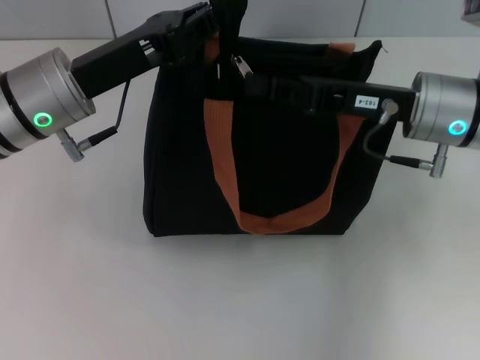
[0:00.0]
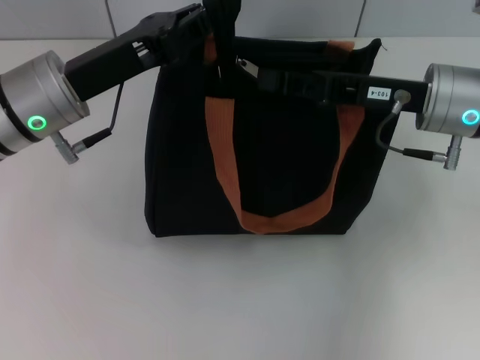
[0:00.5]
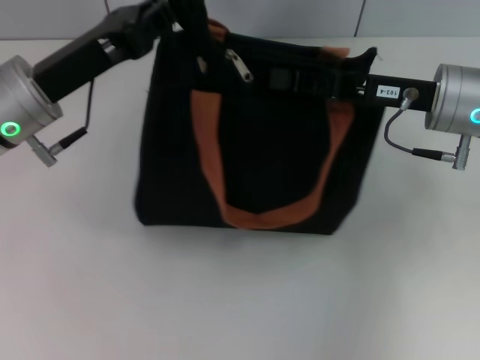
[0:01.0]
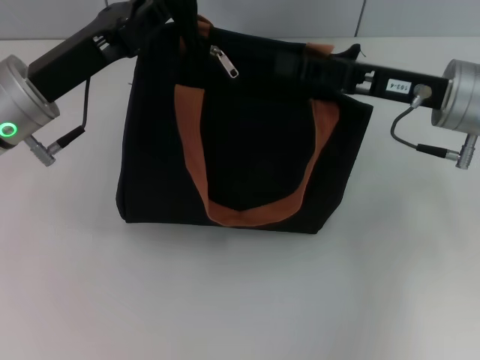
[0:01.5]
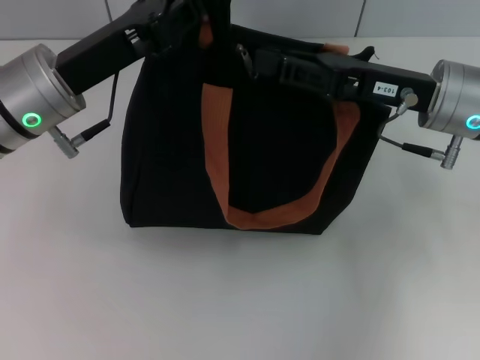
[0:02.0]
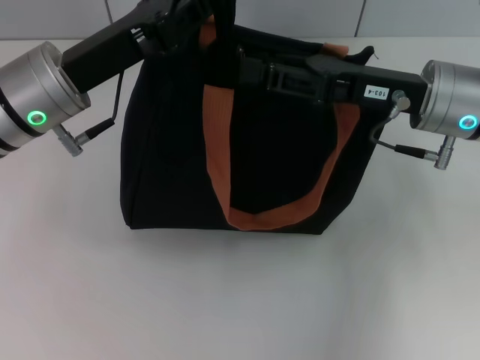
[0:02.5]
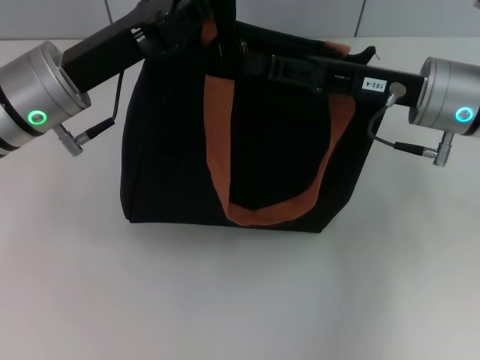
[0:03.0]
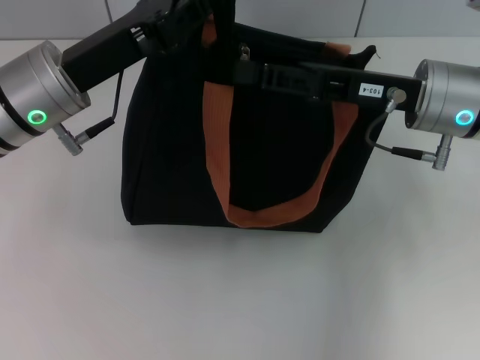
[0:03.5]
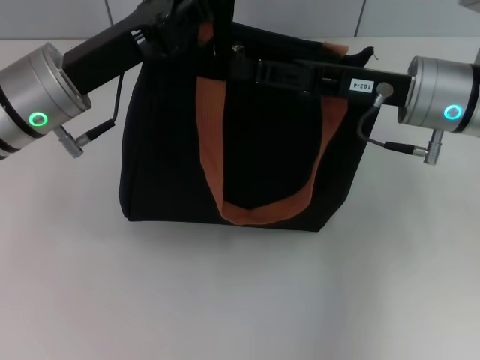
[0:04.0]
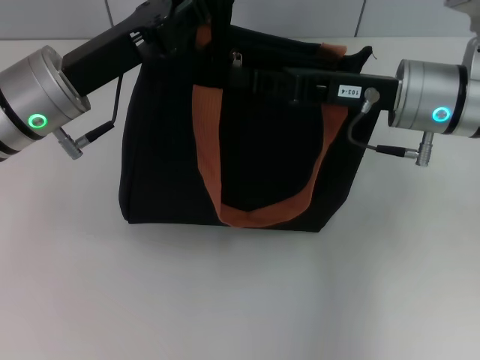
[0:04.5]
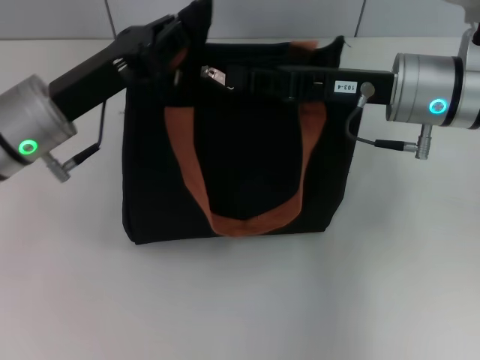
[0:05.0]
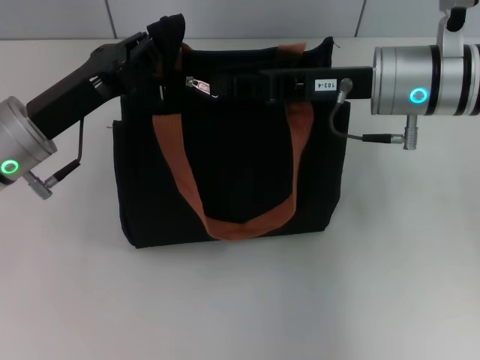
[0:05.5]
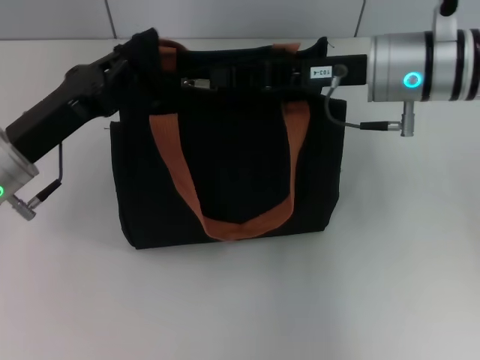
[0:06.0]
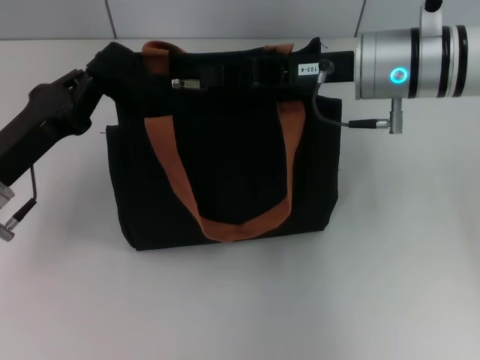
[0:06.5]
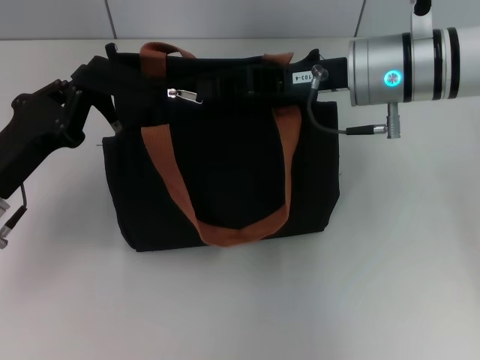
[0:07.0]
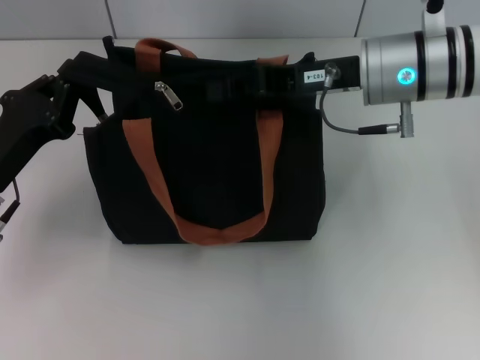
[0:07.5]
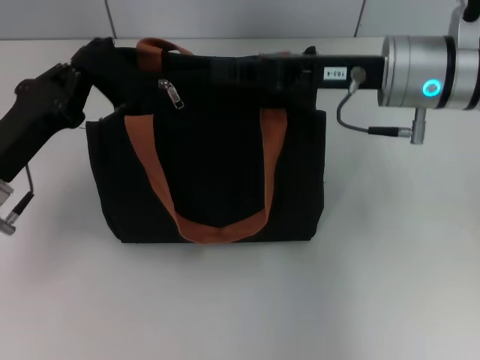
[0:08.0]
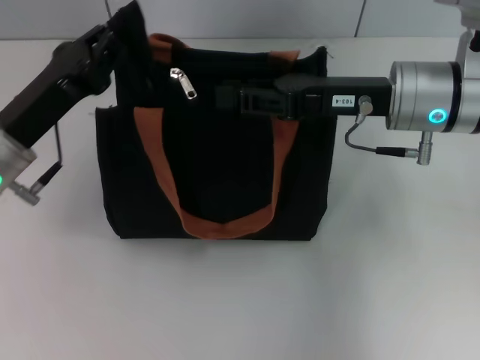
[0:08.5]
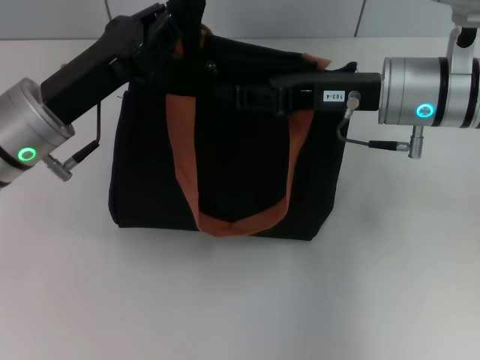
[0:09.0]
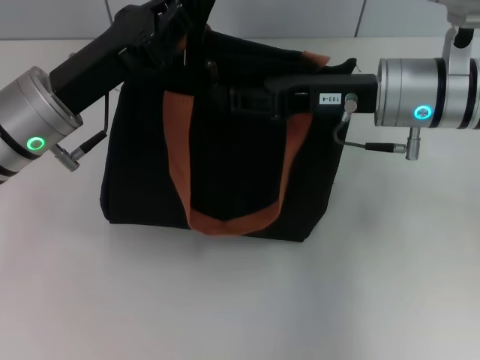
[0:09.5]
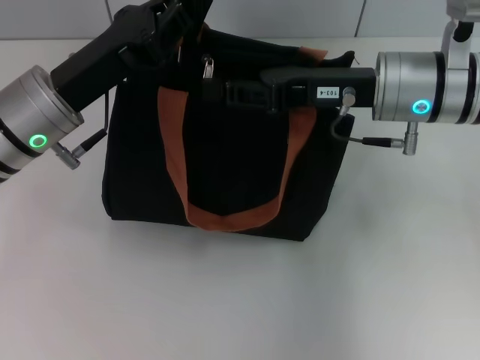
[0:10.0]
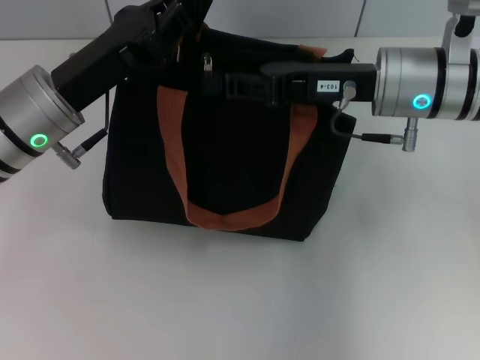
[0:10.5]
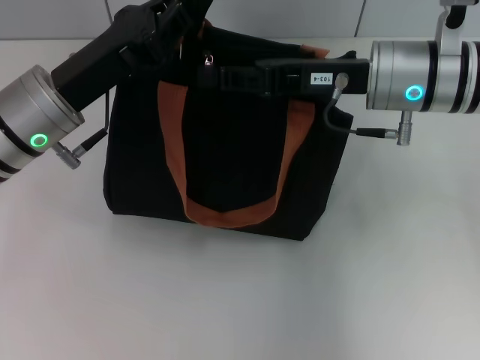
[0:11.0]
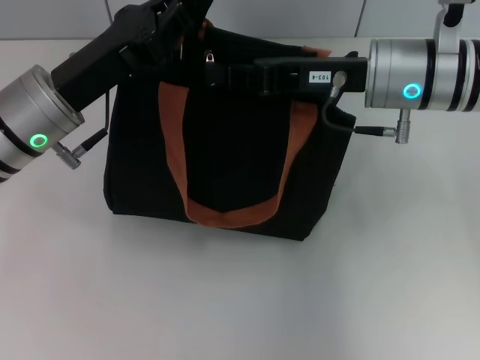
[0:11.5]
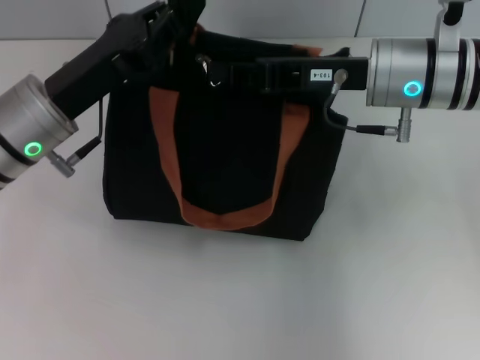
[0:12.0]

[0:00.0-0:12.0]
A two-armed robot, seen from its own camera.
0:00.0 to 0:02.0: The grippers move only a little.
0:02.0 to 0:04.0: The right gripper opens its fingers.
0:04.0 to 0:06.0: The left gripper is displaced downward and to the left by roughly 5 cm, while the right gripper closes up.
0:08.0 to 0:10.0: The right gripper opens its fingers, while the left gripper moves to the right, upward and forward, some 10 cm.
0:10.0 to 0:12.0: The right gripper closes up.

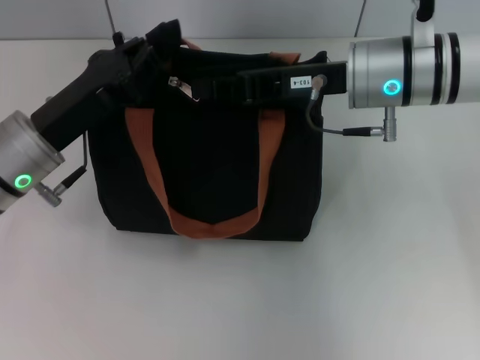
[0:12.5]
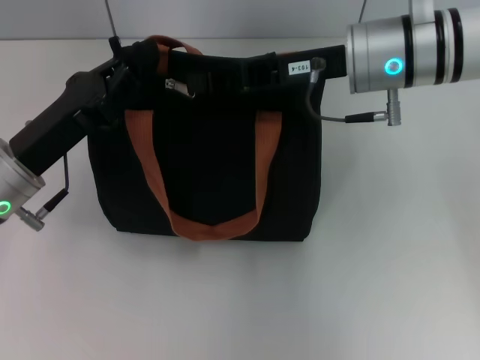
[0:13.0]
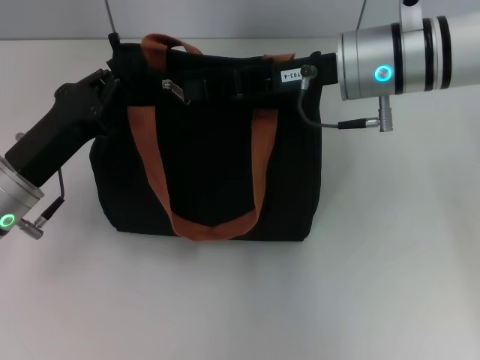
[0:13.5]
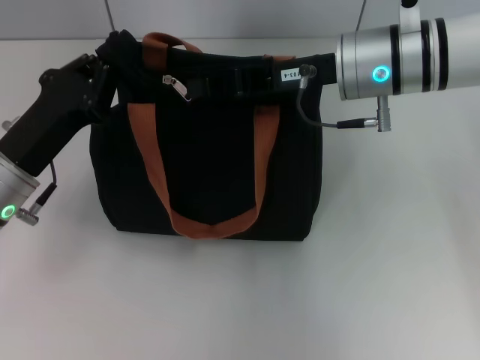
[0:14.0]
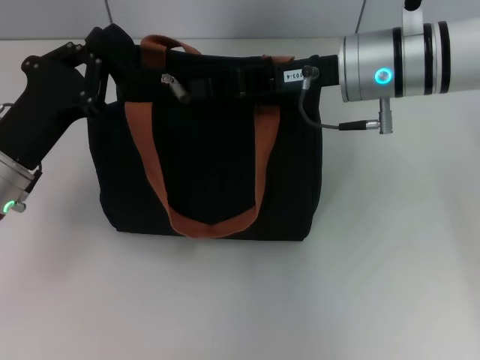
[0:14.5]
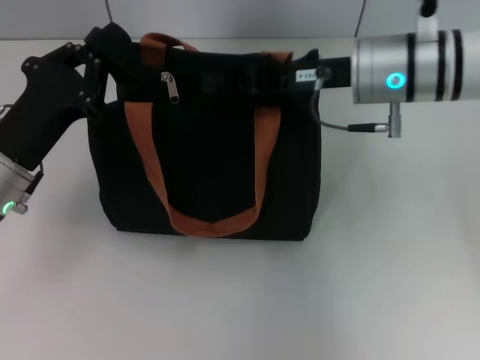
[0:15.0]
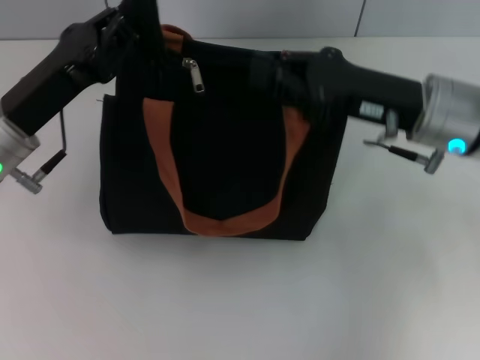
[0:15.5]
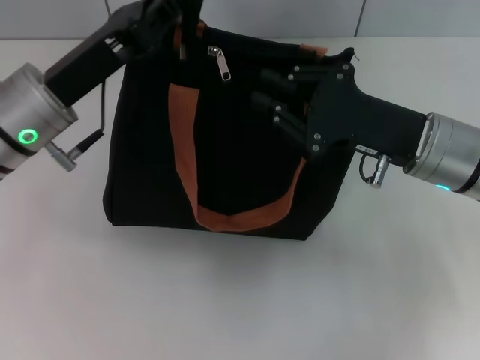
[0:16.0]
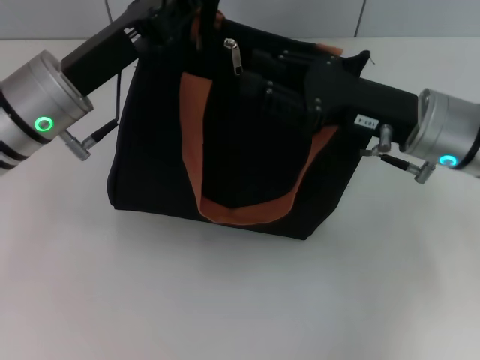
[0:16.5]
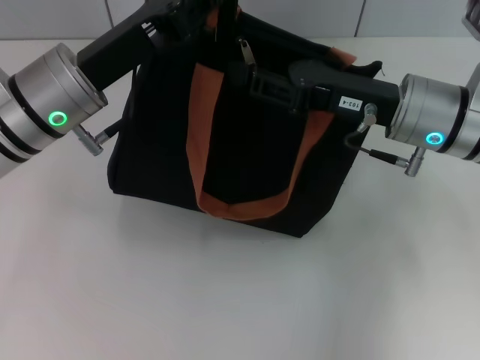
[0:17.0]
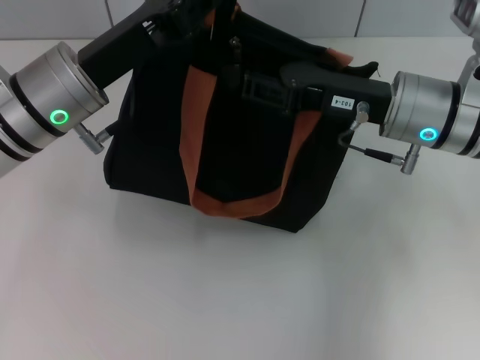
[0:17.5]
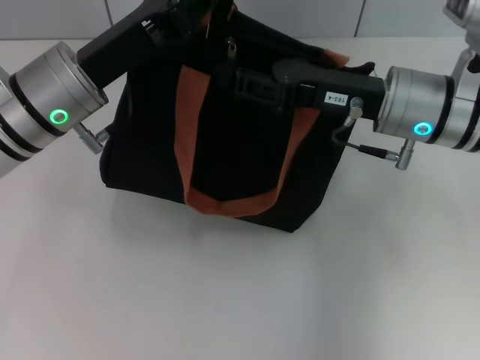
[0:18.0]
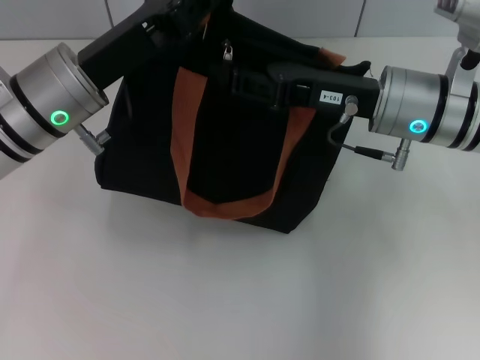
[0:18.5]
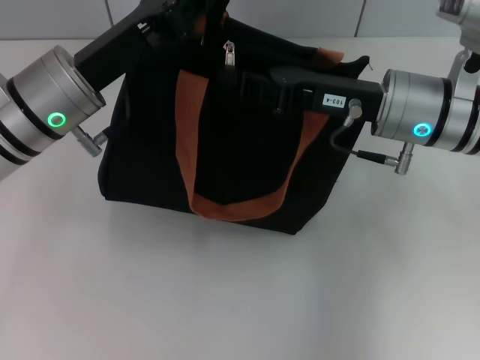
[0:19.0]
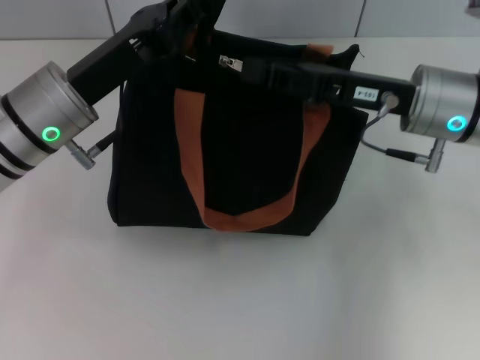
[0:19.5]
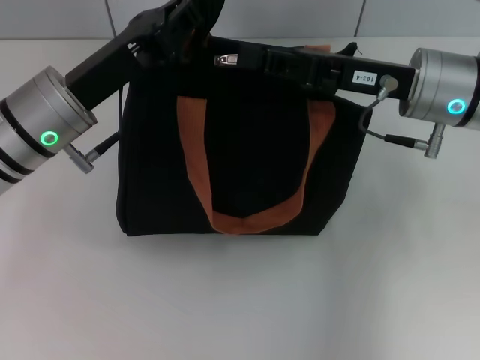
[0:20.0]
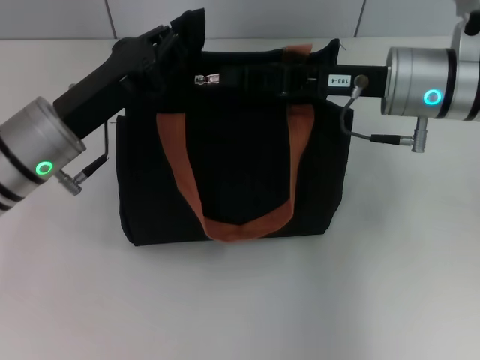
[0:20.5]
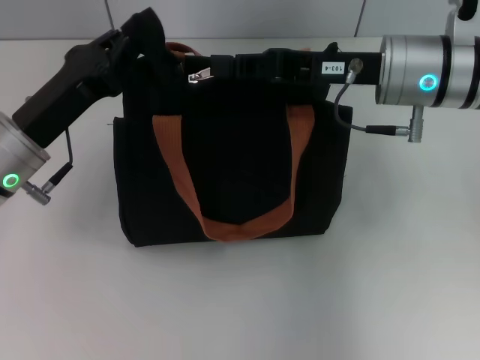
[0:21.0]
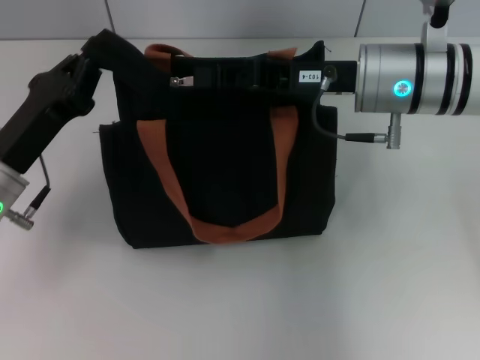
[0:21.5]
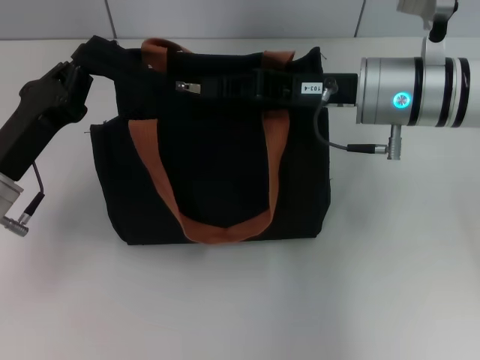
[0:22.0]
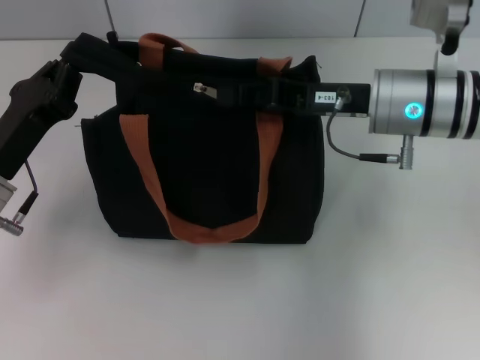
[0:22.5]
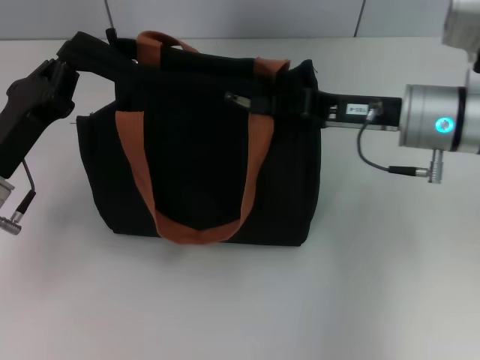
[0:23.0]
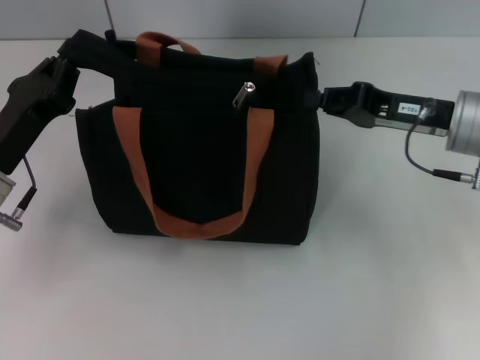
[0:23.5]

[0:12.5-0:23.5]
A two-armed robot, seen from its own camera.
Step, 0:12.5 to 0:23.0: Pull up the zipper with your right hand.
0:14.5 to 0:16.0: The right gripper shifts about 10 cm backward, to the right and downward; the left gripper moves upward, some 5 cm.
0:16.0 to 0:18.0: The right gripper ends up some 5 cm from where it was.
0:18.0 to 0:20.0: The right gripper closes.
0:20.0 to 0:21.5: The left gripper shifts about 10 cm to the left and downward.
0:21.5 to 0:23.5: The right gripper is displaced to the right by about 10 cm.

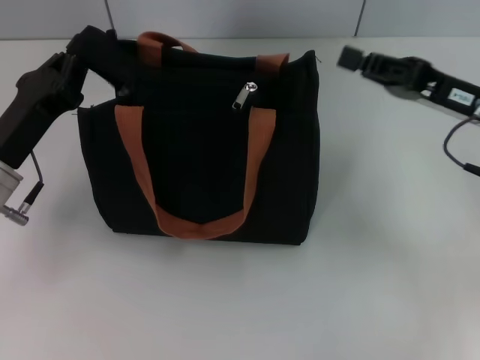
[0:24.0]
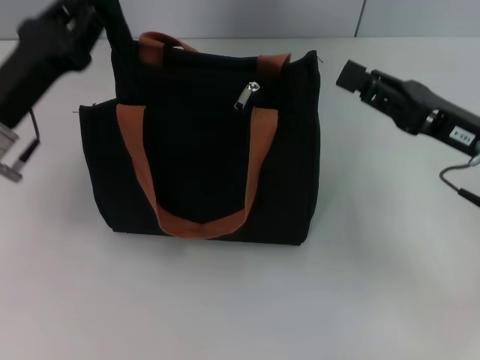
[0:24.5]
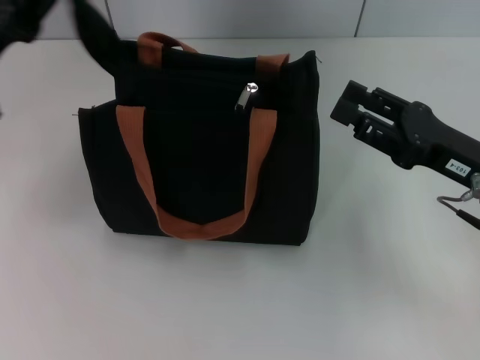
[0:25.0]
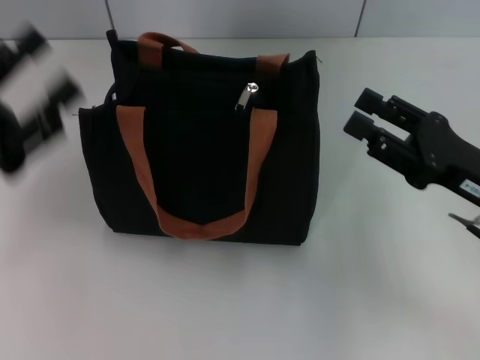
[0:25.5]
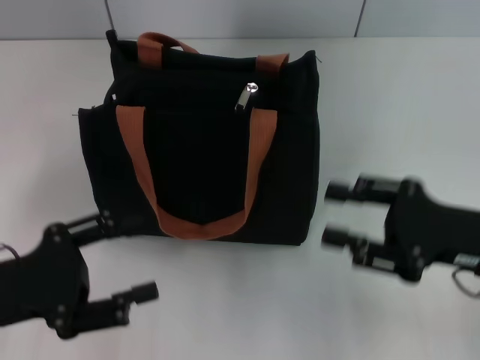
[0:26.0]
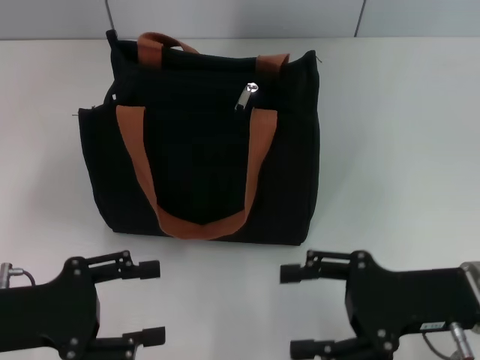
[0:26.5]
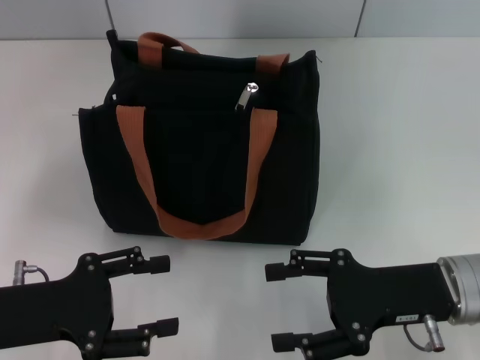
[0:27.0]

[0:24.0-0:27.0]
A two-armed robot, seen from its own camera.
Step, 0:24.0 to 0:25.0: Grab the zipper with your left hand.
0:24.0 to 0:25.5: The left gripper is displaced upward by roughly 5 cm, and opens its fingers; the right gripper is displaced backward by about 5 cm, and opens up.
0:25.5 to 0:27.0: The right gripper ends up about 5 cm from where it was. The left gripper moves downward, about 5 cm.
